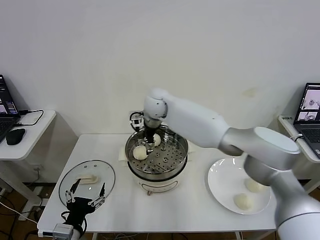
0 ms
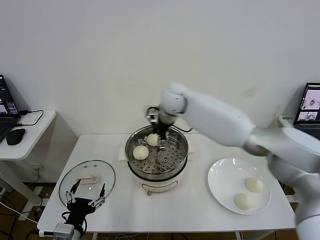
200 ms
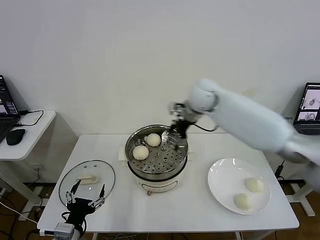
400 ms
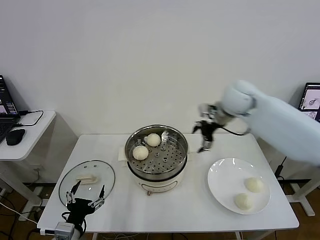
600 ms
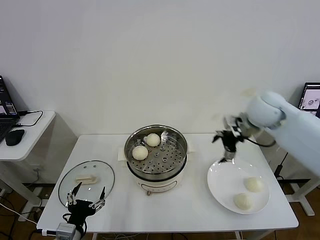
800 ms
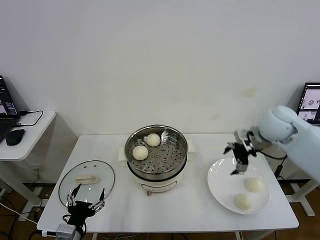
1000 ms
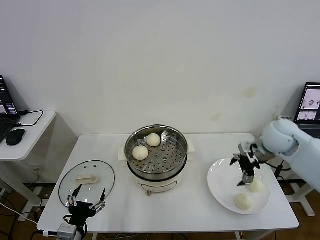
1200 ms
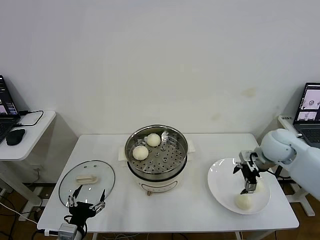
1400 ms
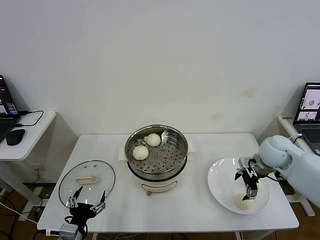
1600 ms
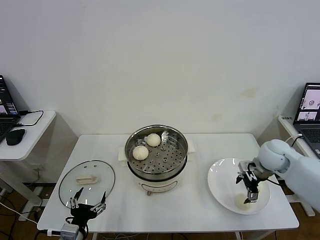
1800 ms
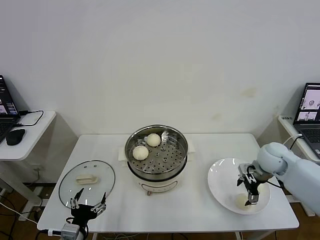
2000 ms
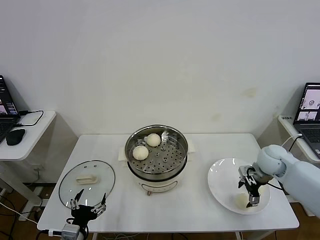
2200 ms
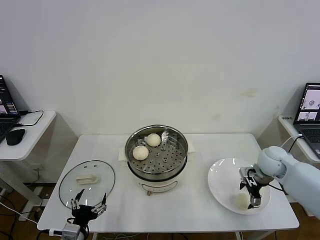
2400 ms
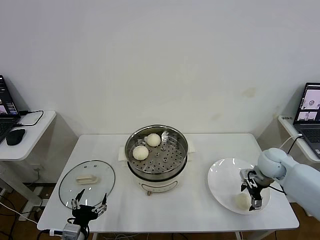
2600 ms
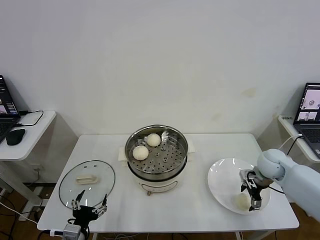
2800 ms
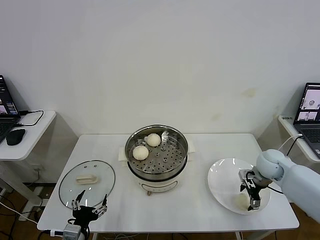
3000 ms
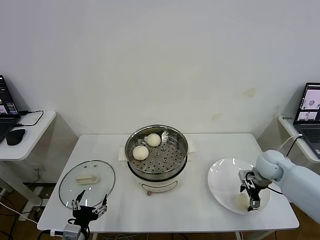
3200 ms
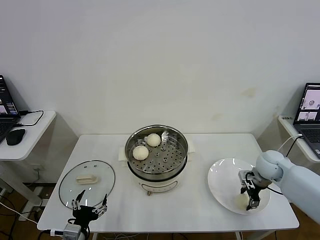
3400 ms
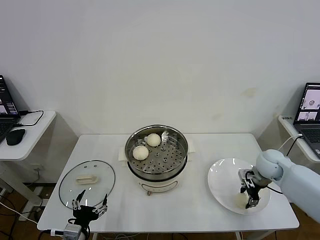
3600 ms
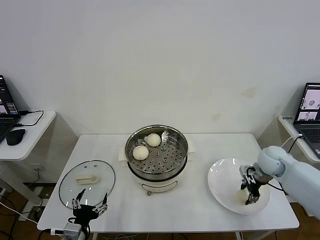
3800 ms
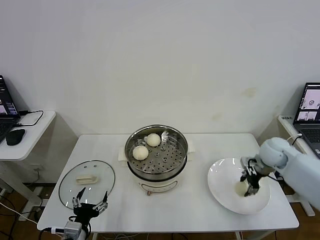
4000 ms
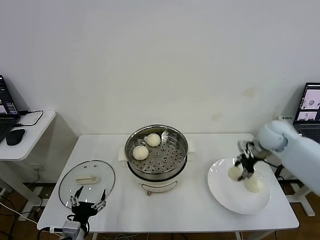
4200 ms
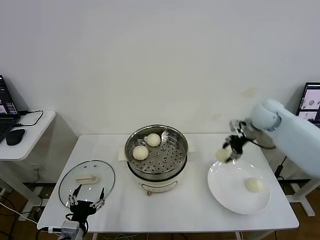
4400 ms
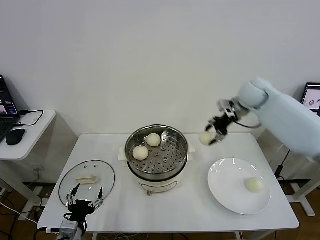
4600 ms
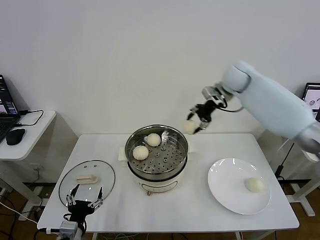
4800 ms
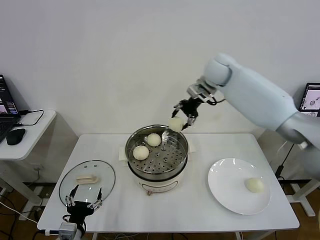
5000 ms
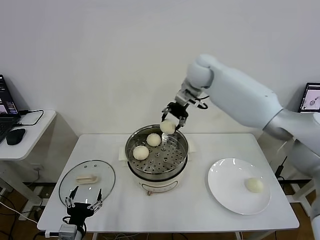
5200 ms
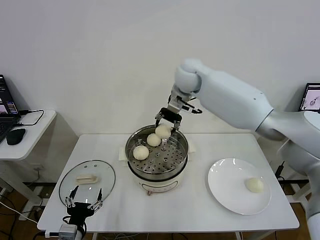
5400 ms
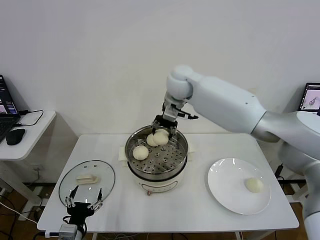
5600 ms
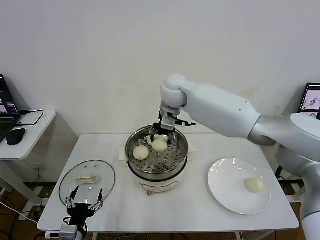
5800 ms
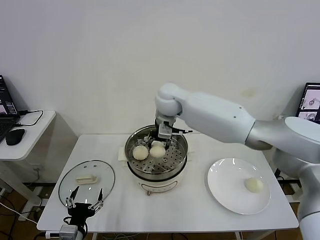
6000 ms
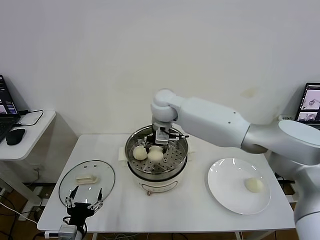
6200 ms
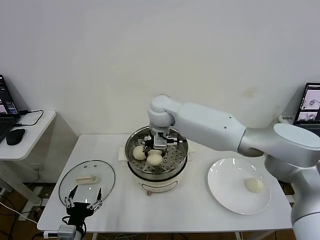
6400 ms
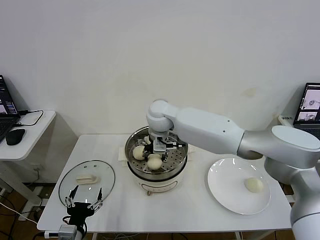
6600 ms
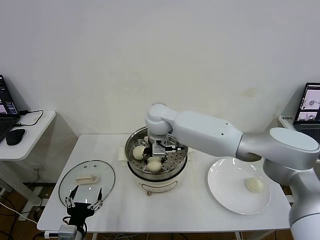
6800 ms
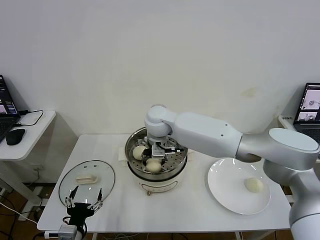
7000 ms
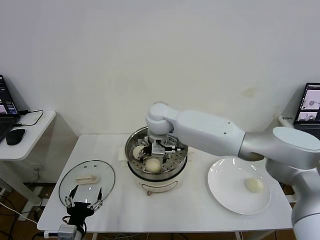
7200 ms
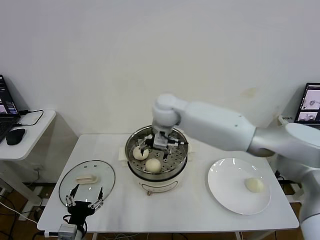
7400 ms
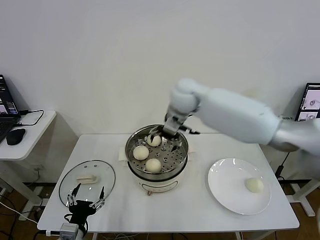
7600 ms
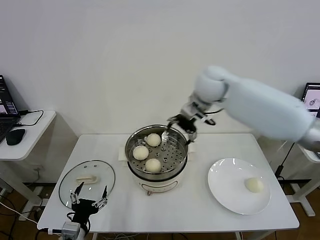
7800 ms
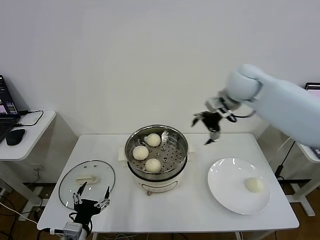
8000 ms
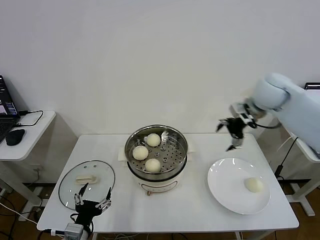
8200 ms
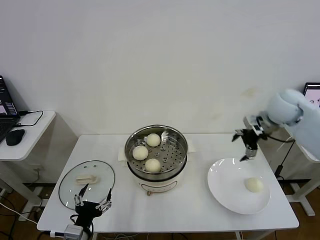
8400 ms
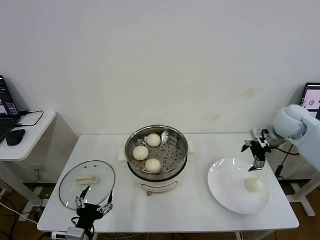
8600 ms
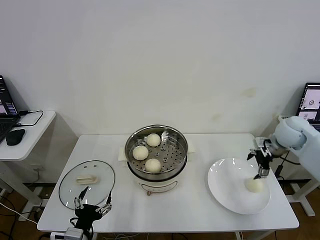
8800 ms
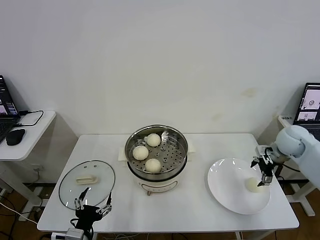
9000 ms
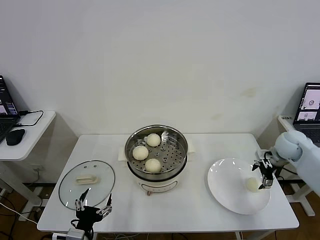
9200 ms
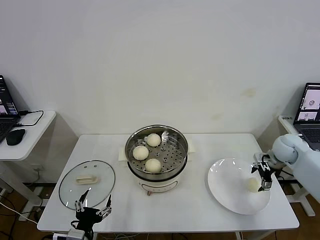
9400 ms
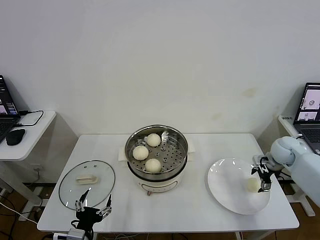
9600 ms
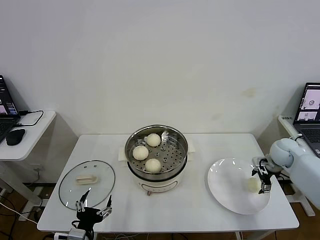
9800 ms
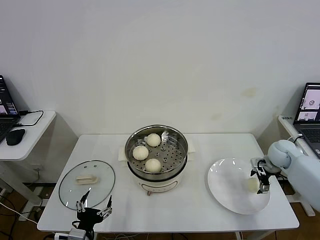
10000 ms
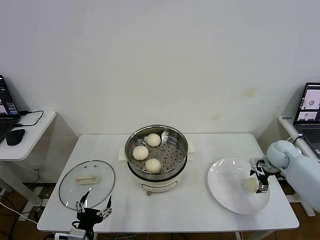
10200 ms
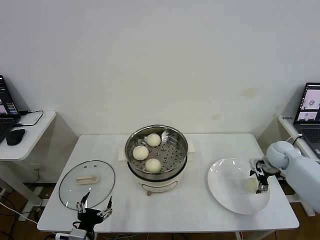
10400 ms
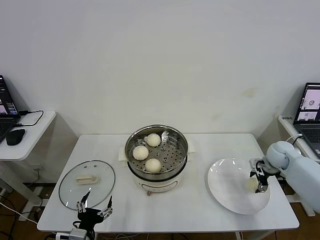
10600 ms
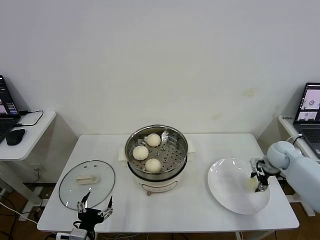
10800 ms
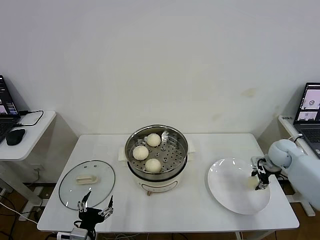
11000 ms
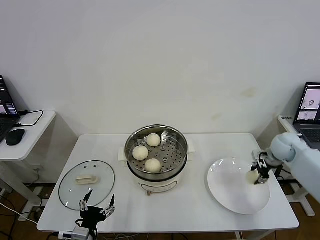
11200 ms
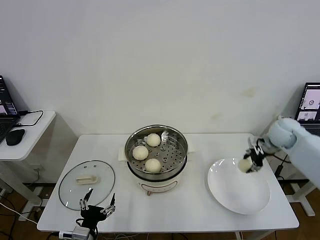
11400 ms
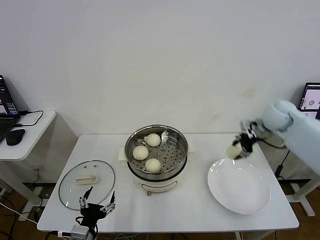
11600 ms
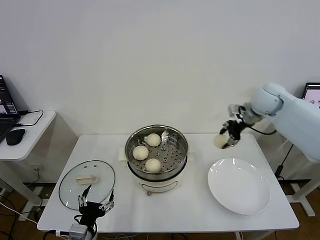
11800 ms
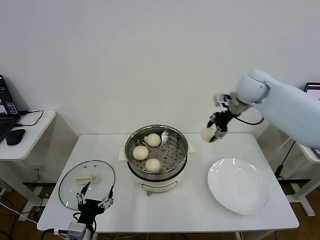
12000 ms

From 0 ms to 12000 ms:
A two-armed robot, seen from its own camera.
Task of the whole recording: take steamed baozi put them in steamer then cover it.
Step, from 0 ms to 3600 ms: Grasp the baozi in the plate with right gripper.
Step, from 3800 ms to 7200 ms: Place the baozi on the steamer with right gripper.
Step, from 7600 ms to 11000 ms: Grasp the baozi in the plate with right gripper.
From 0 ms to 1600 ms: The right gripper heads to the right, covering about 40 cm.
From 1600 ms to 3000 ms: The right gripper shifts some 5 cm downward.
From 3000 ms to 4400 ms: The right gripper heads upward and forward, covering about 15 cm, and closes up.
From 4400 ms to 6000 ms: The right gripper goes roughly 30 cm to the left.
From 6000 ms to 7600 ms: The right gripper travels downward and back again, about 5 cm each way, and opens.
From 7600 ms to 9000 ms: The right gripper travels to the right by about 40 cm.
From 9000 ms to 10400 ms: The right gripper shifts about 10 cm downward.
From 10400 ms to 12000 ms: The right gripper heads upward and to the left, covering about 30 cm, and closes its fingers.

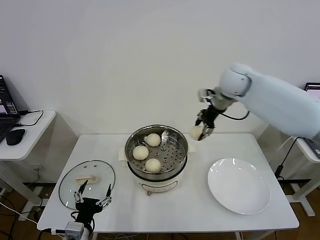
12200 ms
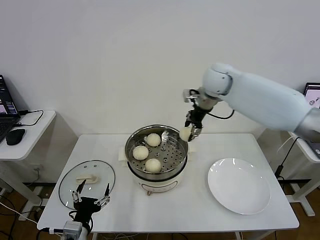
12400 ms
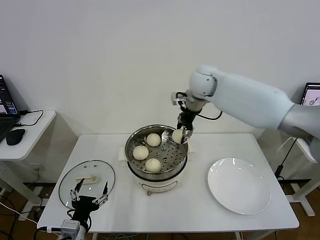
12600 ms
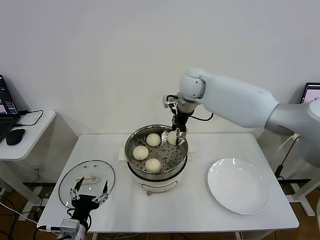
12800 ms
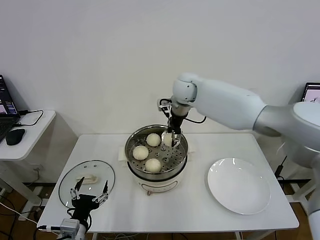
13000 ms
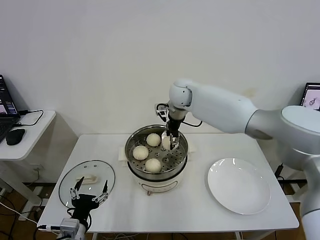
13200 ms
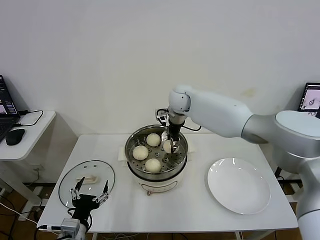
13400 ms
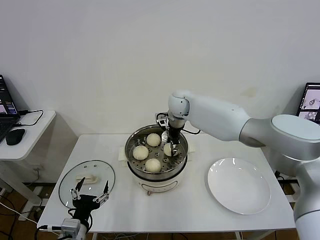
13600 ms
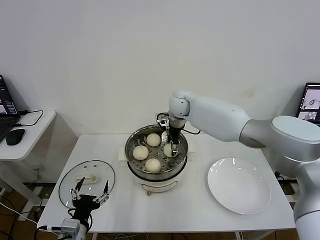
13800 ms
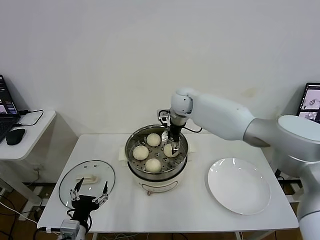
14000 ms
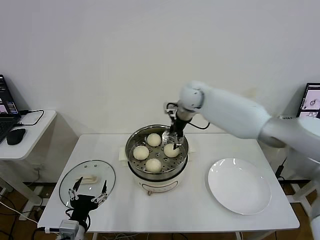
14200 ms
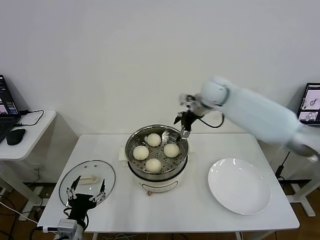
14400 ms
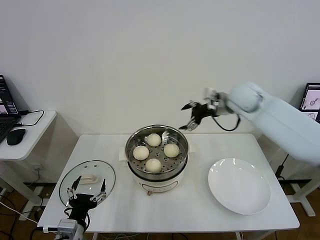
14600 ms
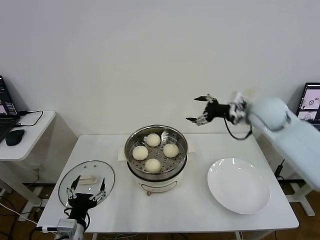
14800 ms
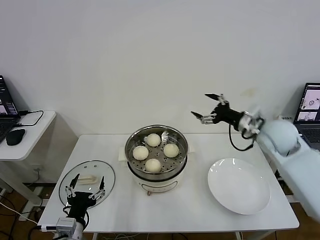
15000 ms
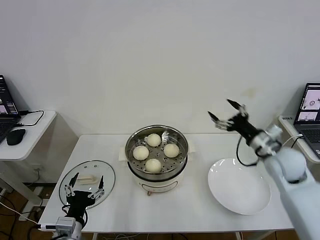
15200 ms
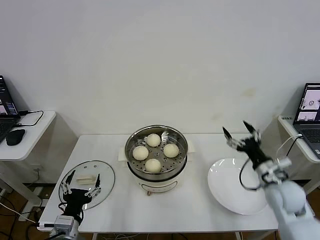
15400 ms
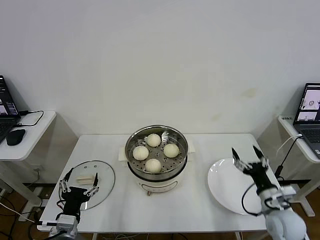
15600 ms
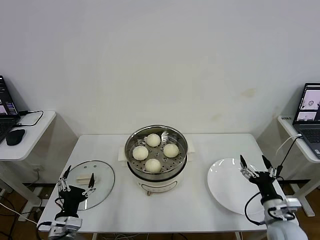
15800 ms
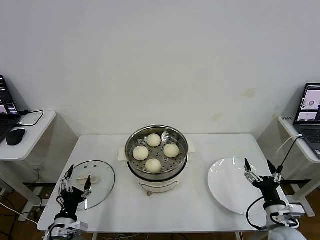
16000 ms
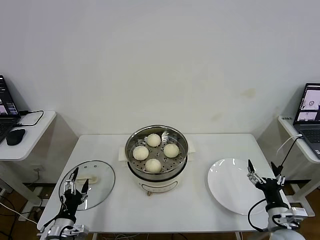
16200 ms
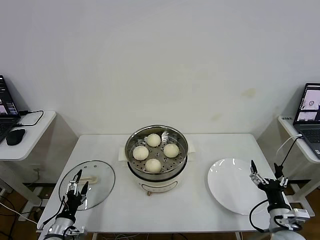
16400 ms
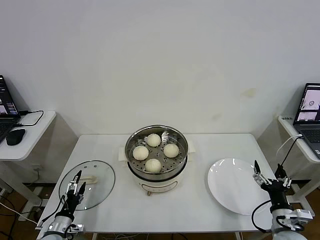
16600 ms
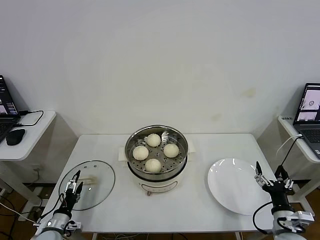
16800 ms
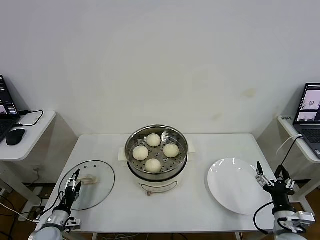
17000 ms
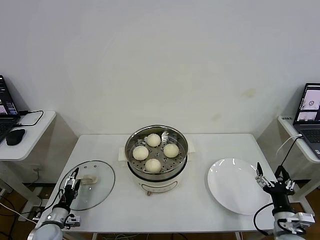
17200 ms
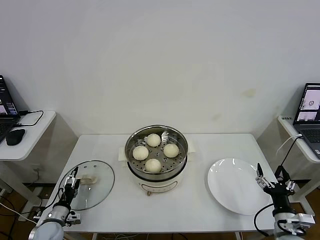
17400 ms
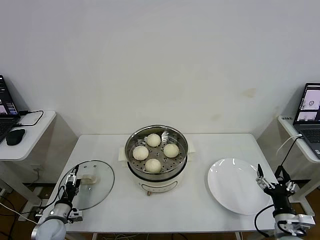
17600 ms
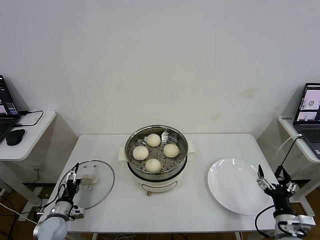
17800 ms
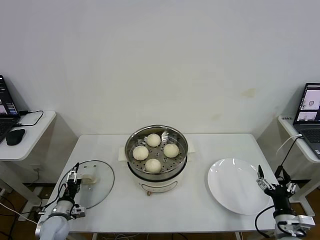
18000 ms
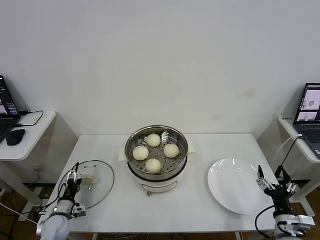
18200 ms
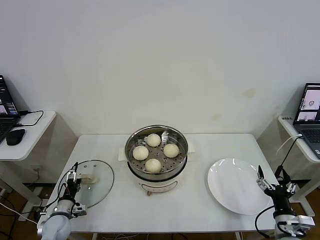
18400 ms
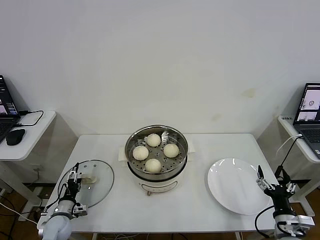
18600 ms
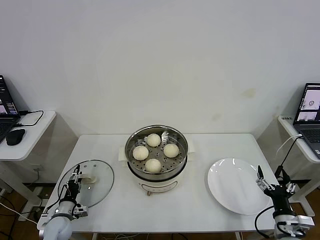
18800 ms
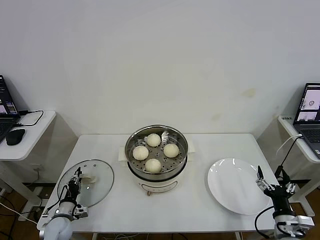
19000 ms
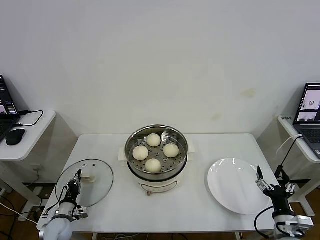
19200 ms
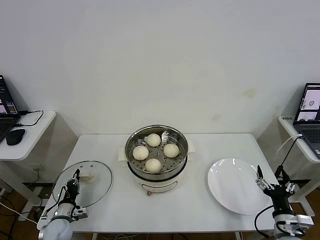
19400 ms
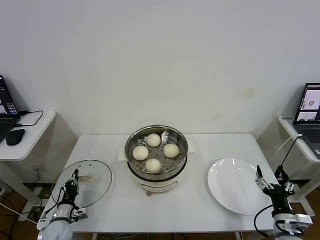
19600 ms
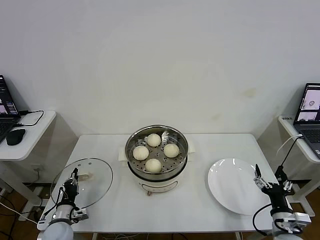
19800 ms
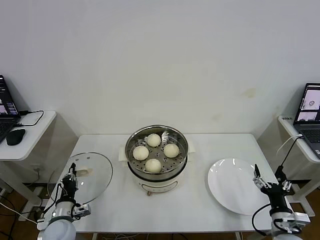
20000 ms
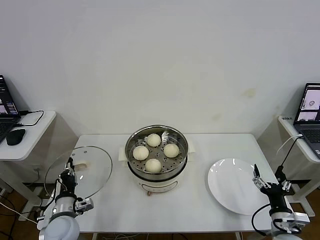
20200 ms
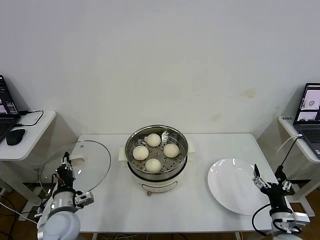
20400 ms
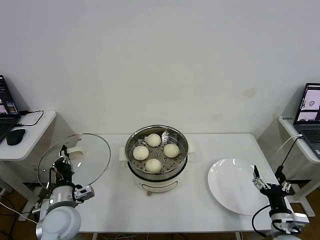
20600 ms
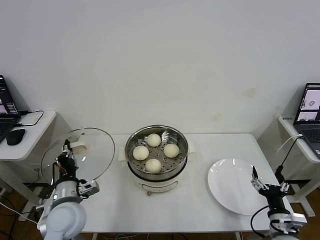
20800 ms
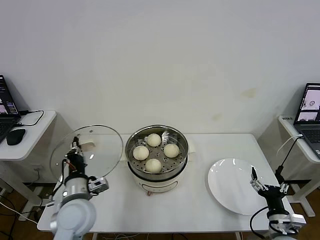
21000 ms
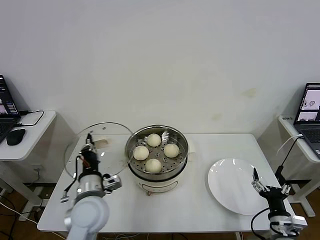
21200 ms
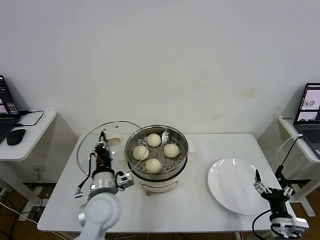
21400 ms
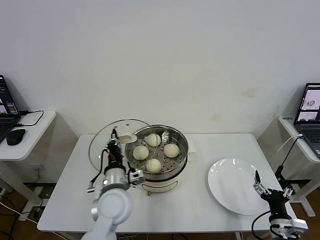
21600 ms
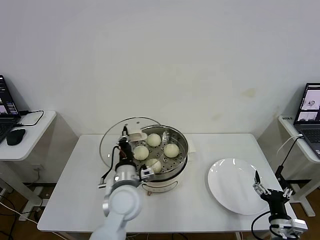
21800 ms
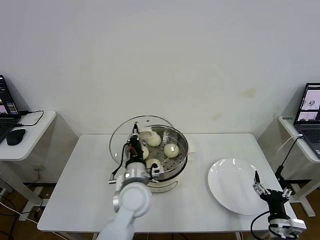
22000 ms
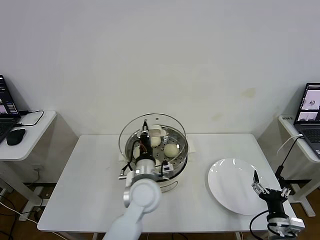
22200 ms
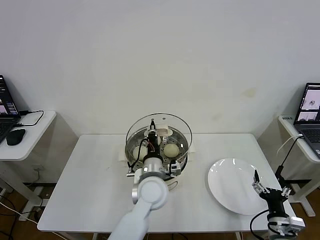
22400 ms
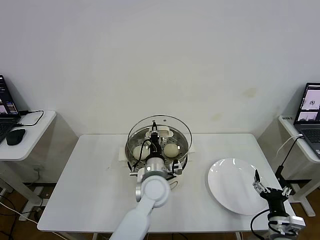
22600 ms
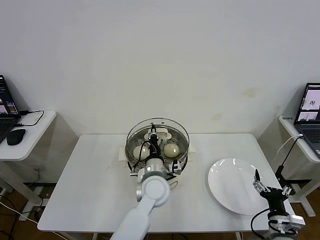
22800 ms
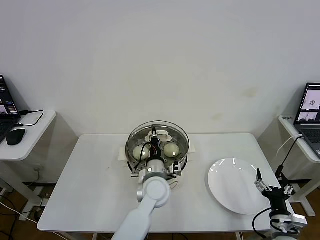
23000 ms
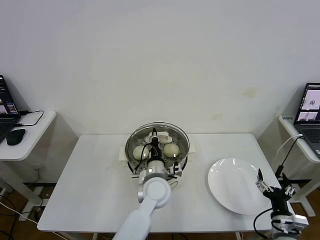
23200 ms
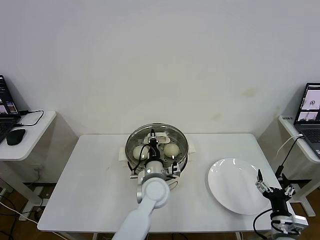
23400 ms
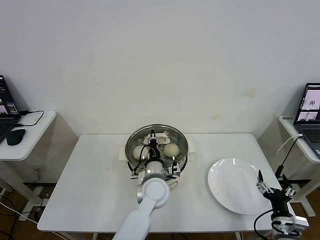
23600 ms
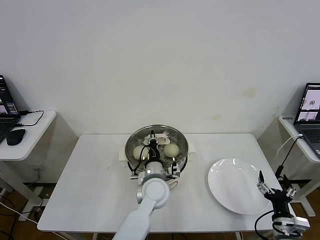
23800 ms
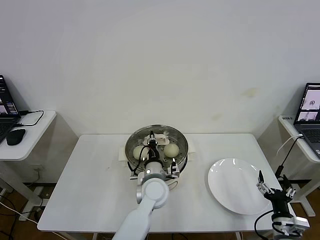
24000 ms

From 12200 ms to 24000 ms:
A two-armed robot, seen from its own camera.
Task of the whole recording: take steamed baozi put them in steamer then cover it.
Step, from 12200 ms to 14000 ms: Place the baozi on the steamer with right gripper.
Step, from 14200 ms to 19600 ms: Grasp the pot lid with left gripper.
From 12200 ms to 13600 ms: The right gripper moves to the left and downward, approximately 20 cm.
From 13600 ms to 15200 ms: The right gripper is displaced to the right and backward by some 35 cm, and opens its fingers.
From 15200 ms to 16600 ms: The left gripper moves downward and to the left, approximately 15 cm. Meanwhile the right gripper shifts some 25 cm backward and downward.
From 16600 ms to 18200 ms: The left gripper travels forward by about 5 cm.
From 18200 ms to 19600 ms: The left gripper closes up.
From 19600 ms to 21000 ms: The left gripper travels upward and to the right by about 25 cm.
From 21000 ms to 22600 ms: The left gripper is displaced to the right by approximately 20 cm.
From 22600 ms to 24000 ms: There are only small adjustments of the grippers.
